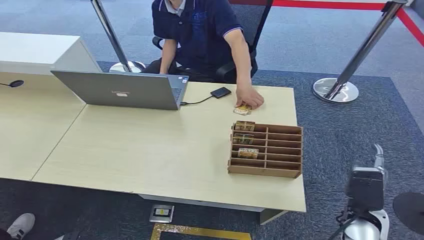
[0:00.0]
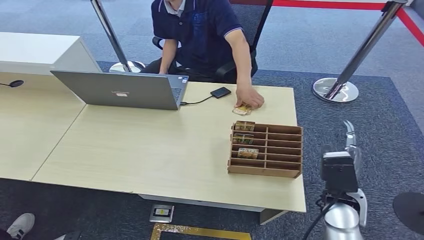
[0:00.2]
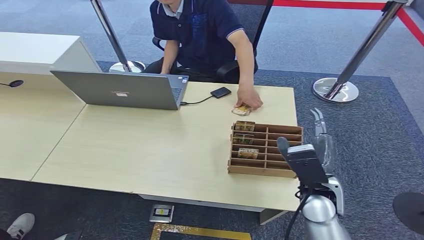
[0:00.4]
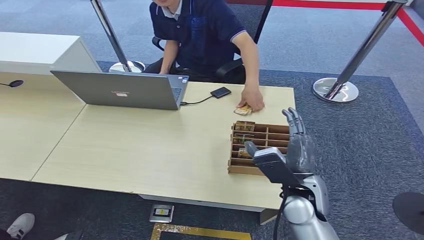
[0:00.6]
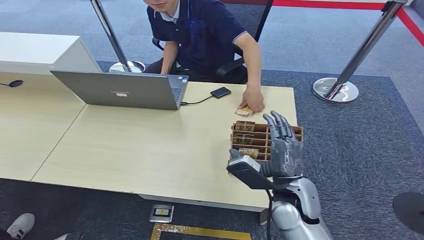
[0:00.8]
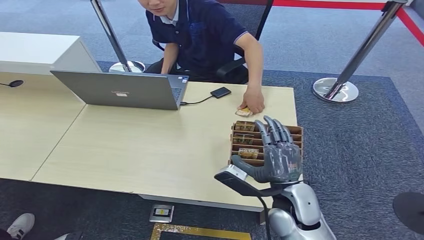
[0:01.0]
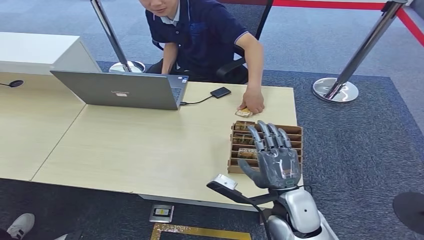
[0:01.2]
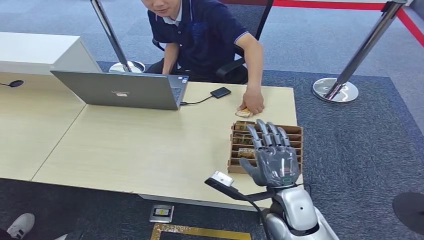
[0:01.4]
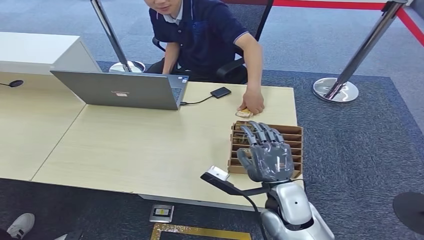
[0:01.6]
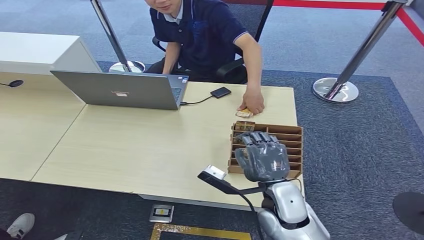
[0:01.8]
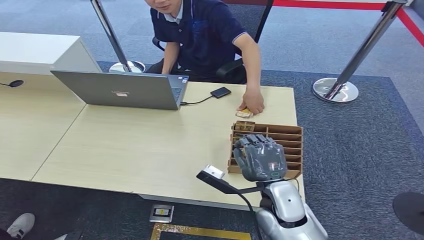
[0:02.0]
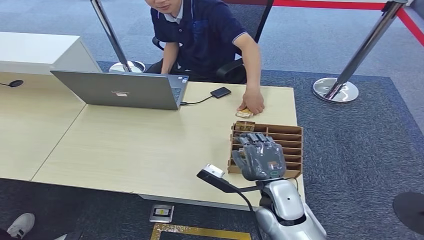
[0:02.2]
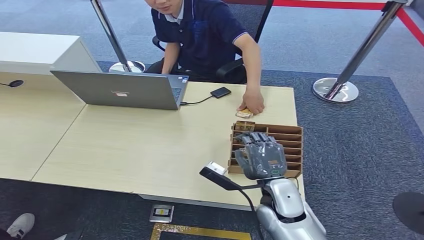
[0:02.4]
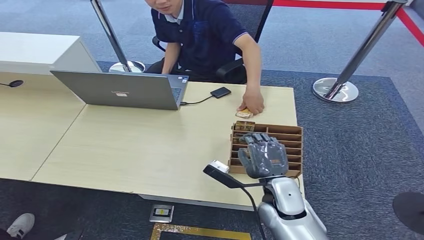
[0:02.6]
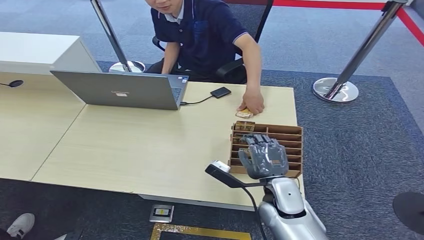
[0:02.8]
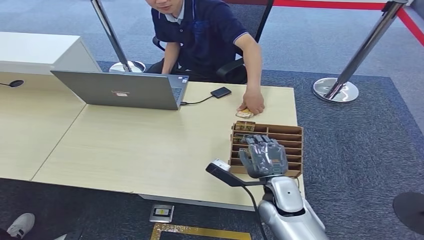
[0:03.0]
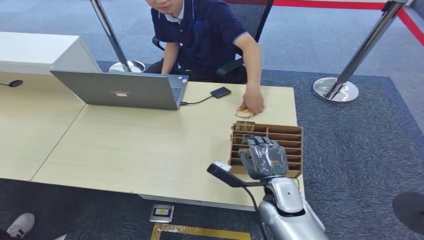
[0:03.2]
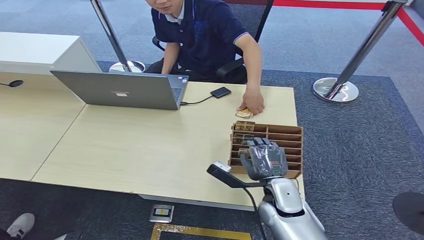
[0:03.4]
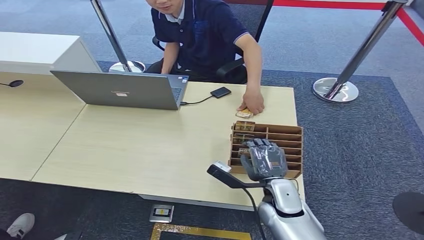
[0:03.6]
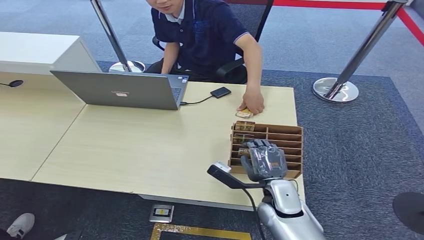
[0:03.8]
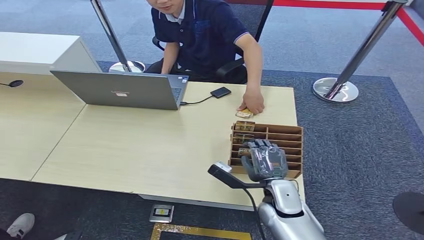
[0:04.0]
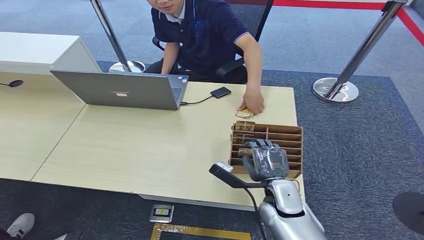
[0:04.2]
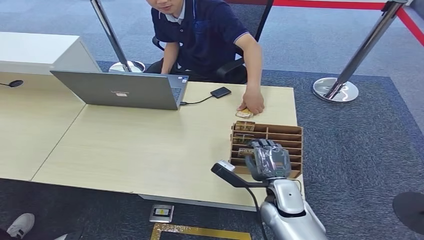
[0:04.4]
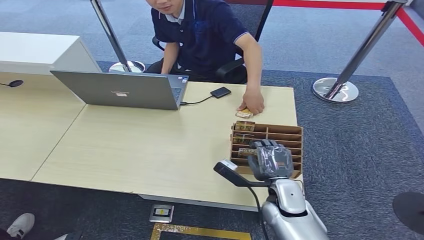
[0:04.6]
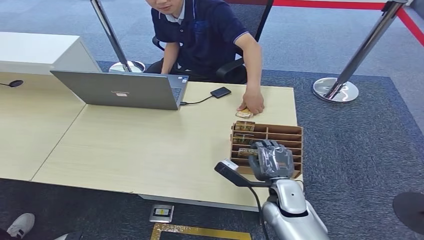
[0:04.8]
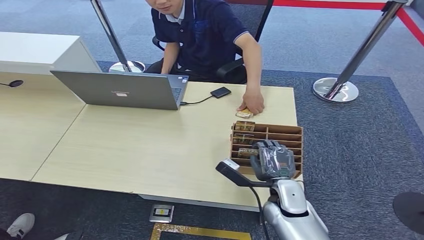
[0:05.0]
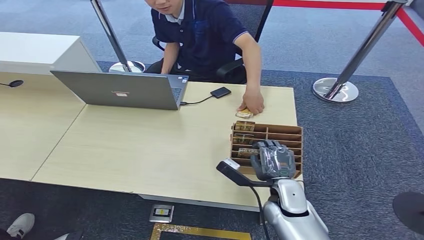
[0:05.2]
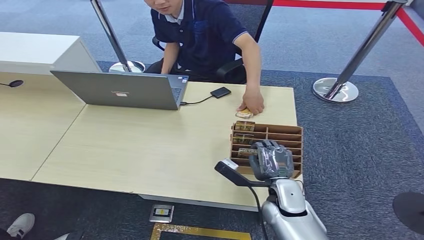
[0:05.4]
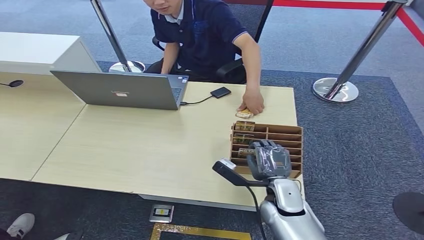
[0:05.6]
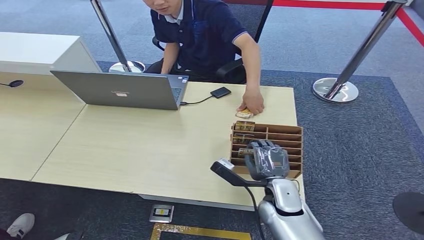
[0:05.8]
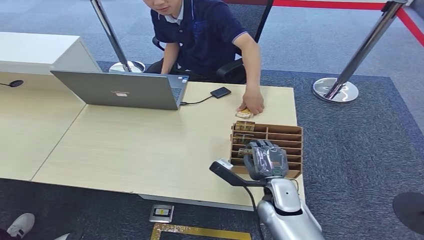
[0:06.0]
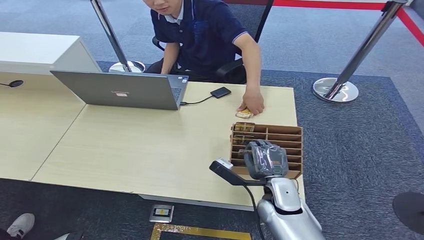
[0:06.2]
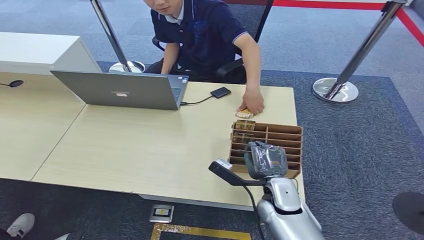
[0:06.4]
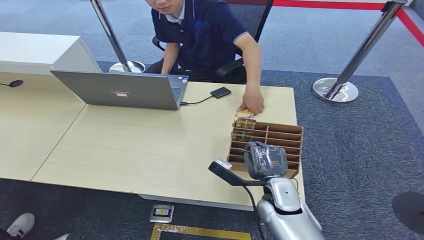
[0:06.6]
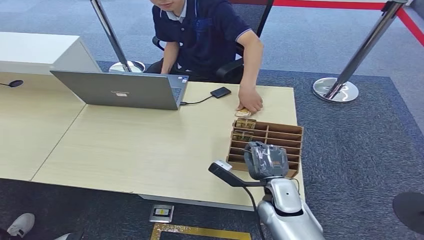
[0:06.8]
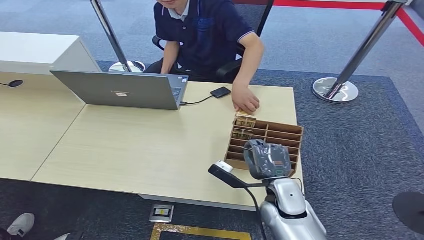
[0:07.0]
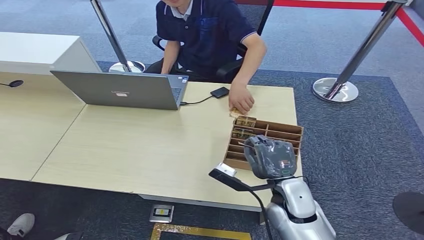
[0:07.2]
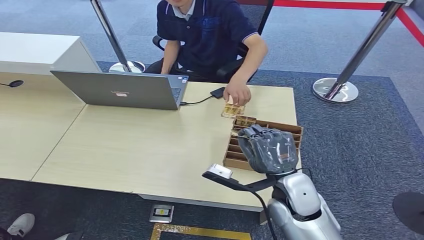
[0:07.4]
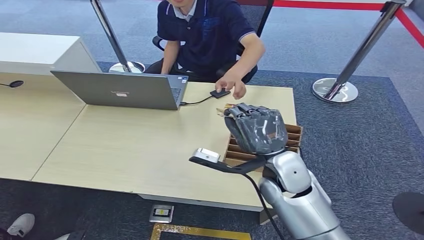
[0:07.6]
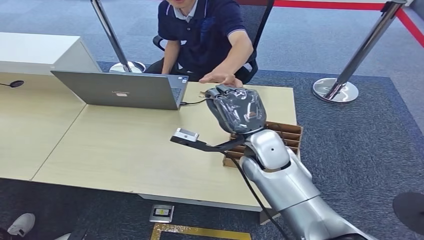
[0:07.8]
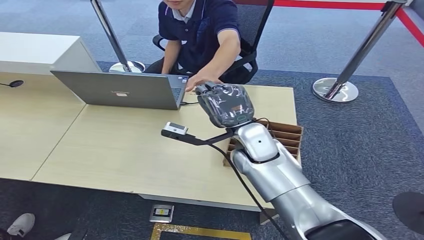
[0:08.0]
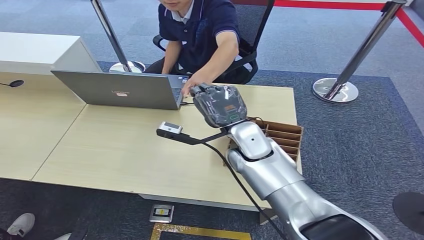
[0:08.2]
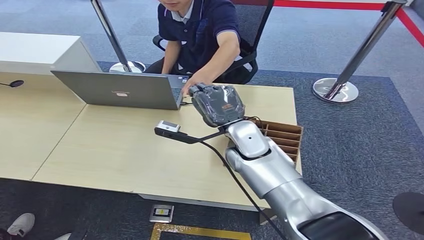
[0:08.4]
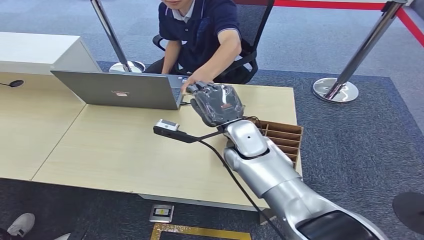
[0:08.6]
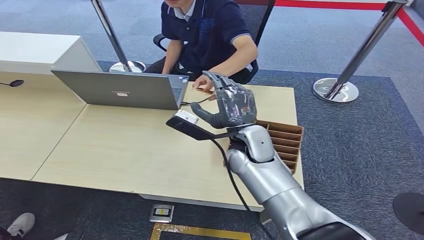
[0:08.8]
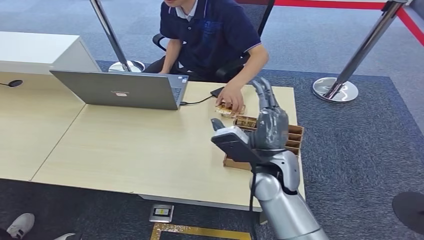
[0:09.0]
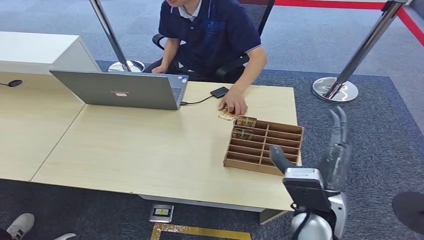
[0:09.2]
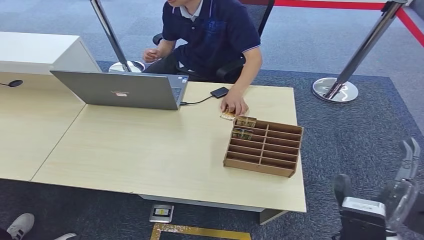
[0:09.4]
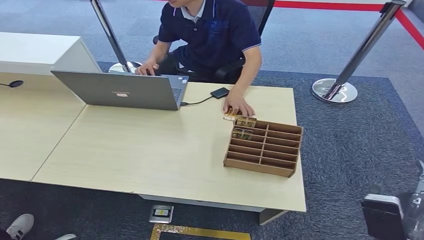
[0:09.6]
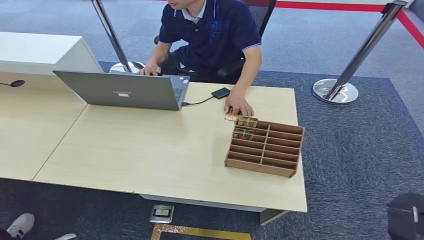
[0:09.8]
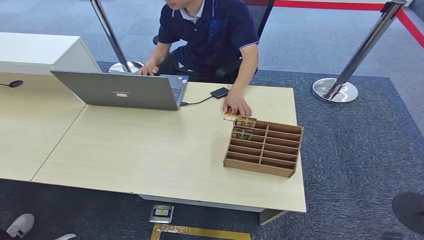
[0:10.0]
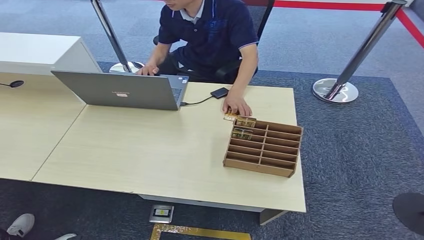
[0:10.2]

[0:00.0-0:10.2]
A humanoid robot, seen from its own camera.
Step, 0:00.0 to 0:06.8: Pick up the room card from the card holder.
Step, 0:07.0 to 0:10.2: Hand the room card to the target.
0:01.4 to 0:03.0: There are only small adjustments of the hands.
0:03.0 to 0:04.4: Neither hand changes place.
0:04.4 to 0:05.8: Both hands stay about where they are.
0:05.8 to 0:07.2: The right hand goes about 10 cm upward.
0:07.2 to 0:08.8: The right hand goes forward and returns, some 15 cm each way.
0:08.8 to 0:10.2: The right hand heads downward, backward and to the right, covering about 35 cm.

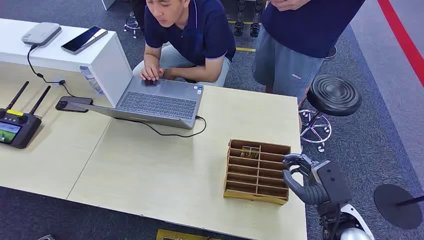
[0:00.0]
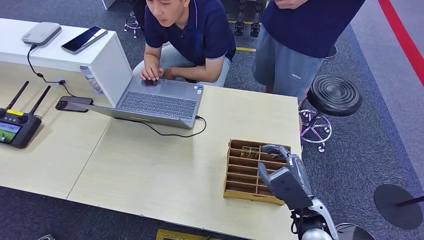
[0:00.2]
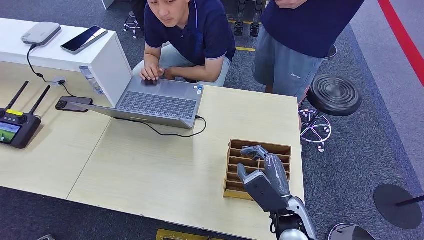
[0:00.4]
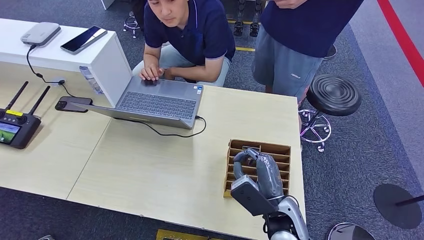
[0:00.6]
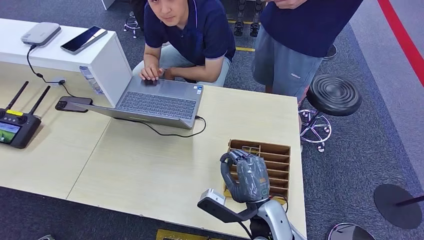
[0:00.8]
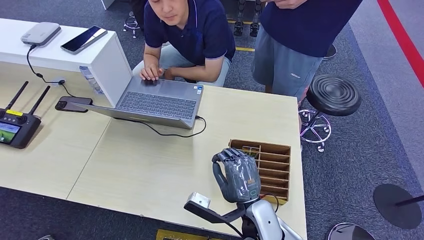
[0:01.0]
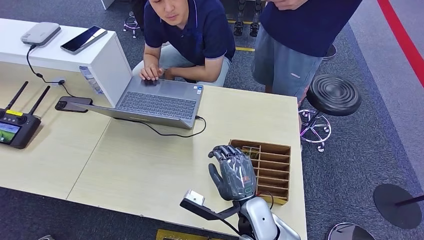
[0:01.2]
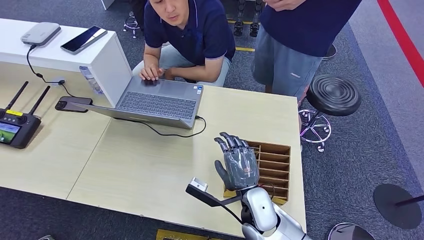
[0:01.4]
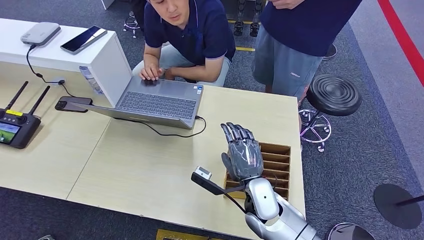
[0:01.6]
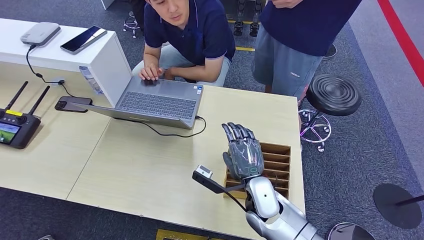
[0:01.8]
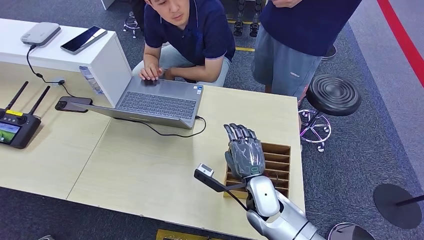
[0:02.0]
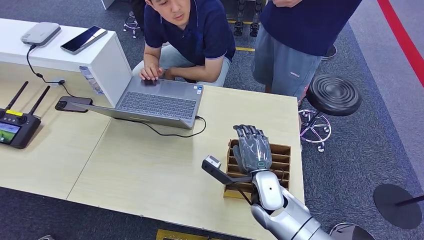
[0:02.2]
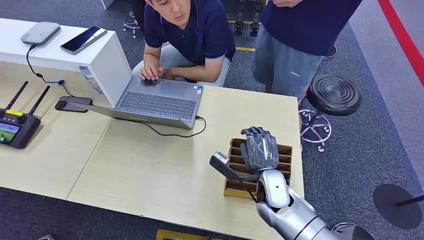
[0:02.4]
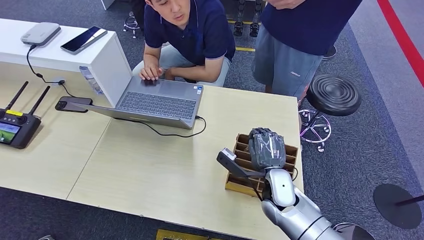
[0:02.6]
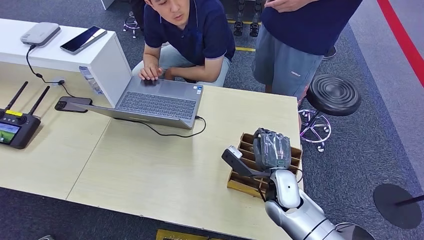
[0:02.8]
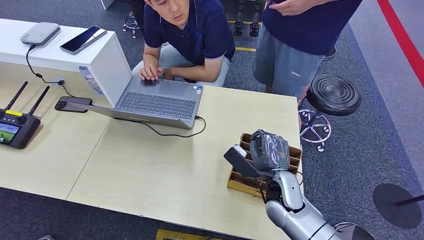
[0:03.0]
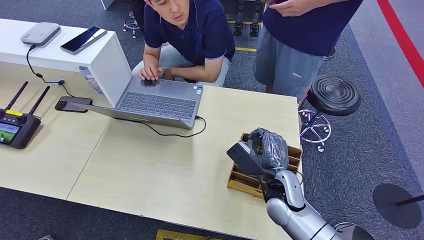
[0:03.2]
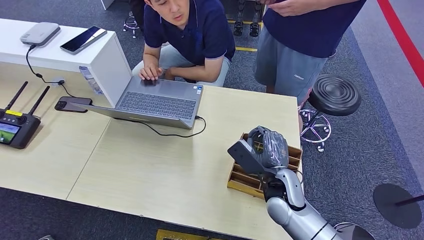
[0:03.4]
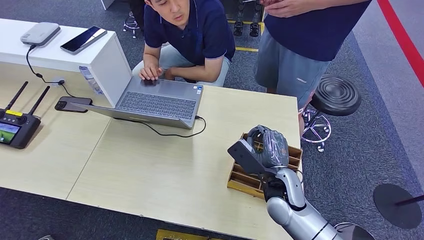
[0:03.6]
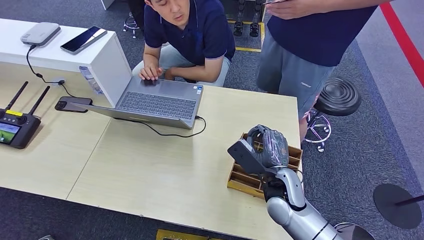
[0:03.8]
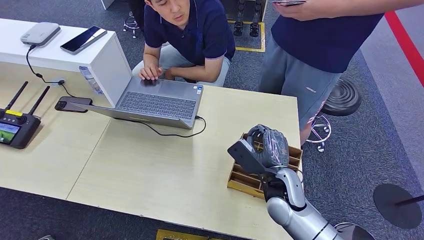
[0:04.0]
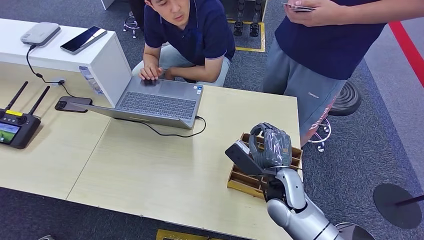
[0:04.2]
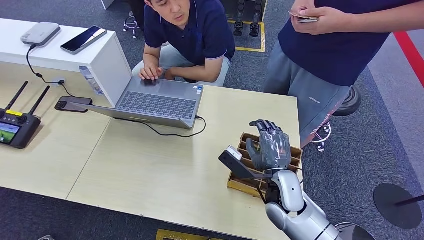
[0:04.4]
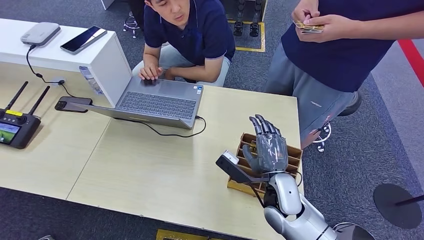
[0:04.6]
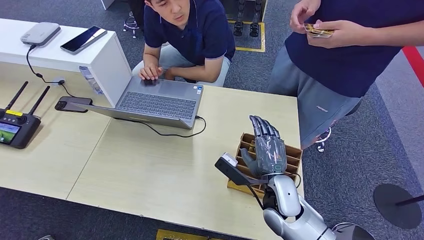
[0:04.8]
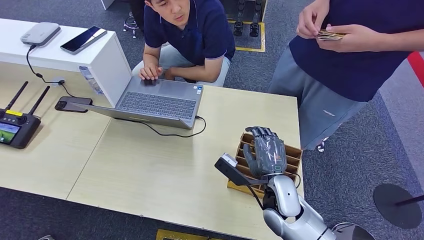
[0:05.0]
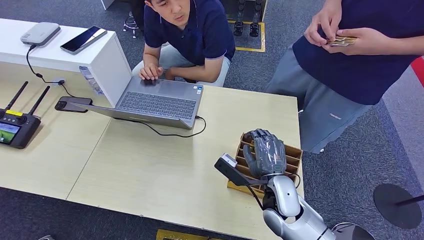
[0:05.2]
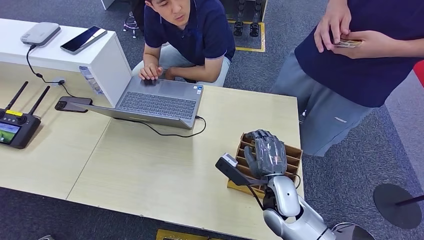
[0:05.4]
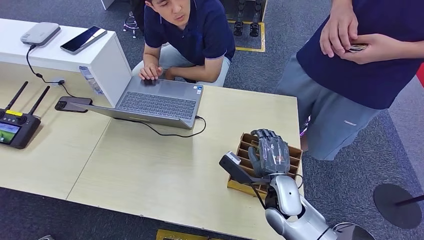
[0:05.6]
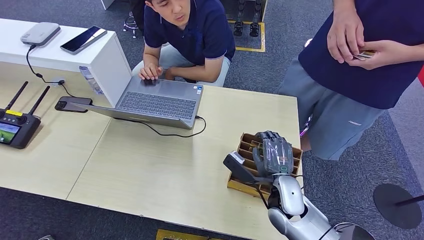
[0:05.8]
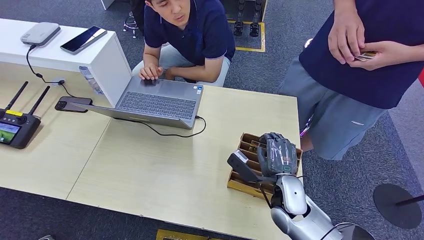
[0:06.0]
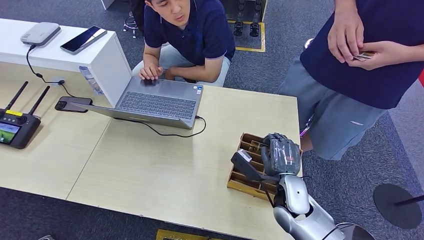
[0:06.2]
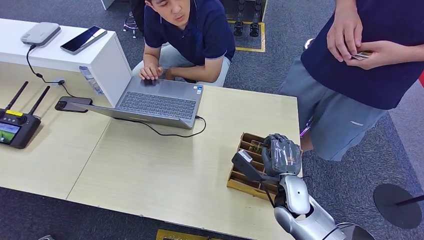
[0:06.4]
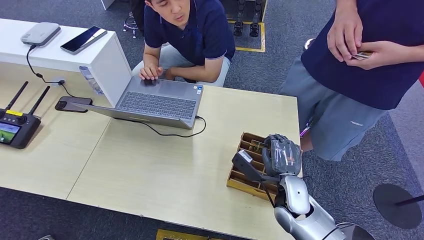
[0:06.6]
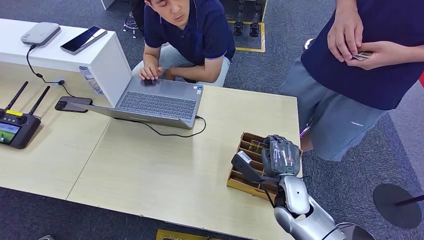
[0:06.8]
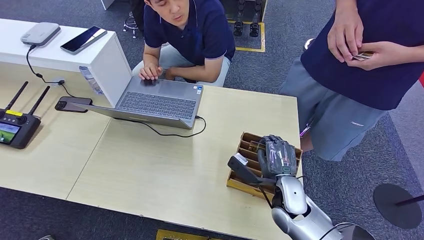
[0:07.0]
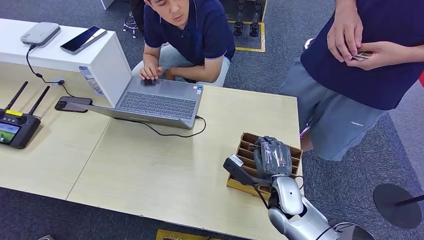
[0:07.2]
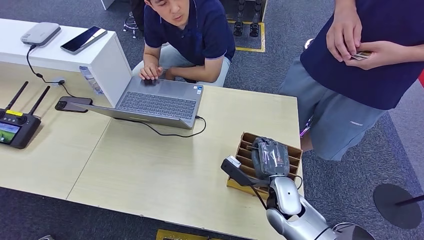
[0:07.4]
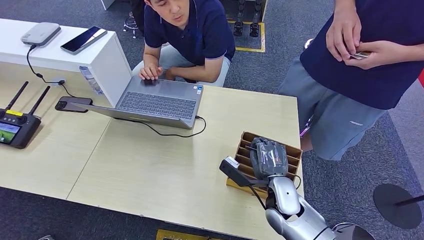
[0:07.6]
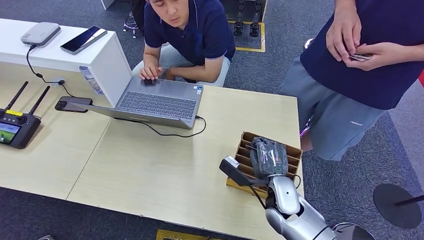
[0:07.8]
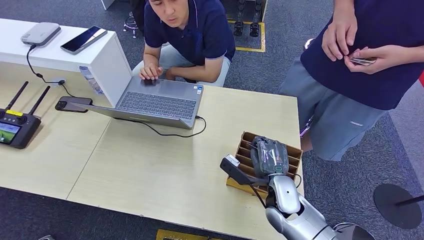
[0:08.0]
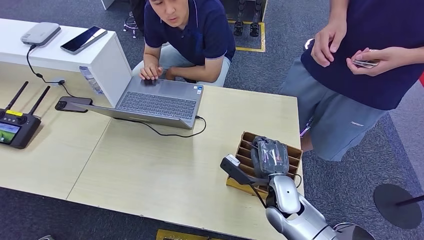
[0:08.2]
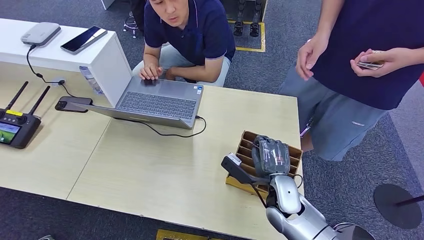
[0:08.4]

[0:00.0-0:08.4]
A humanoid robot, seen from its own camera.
0:01.4 to 0:02.8: The right hand heads to the right, covering approximately 5 cm.
0:02.8 to 0:04.2: The hands make only small movements.
0:04.2 to 0:05.6: The right hand ends up some 5 cm from where it was.
0:05.6 to 0:08.4: The hands make only small movements.
